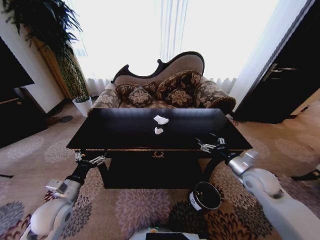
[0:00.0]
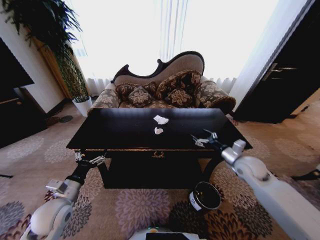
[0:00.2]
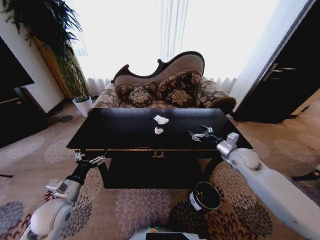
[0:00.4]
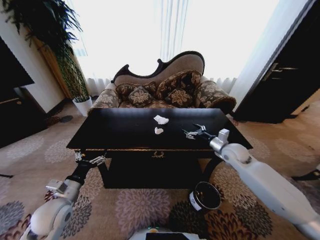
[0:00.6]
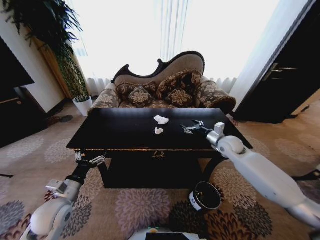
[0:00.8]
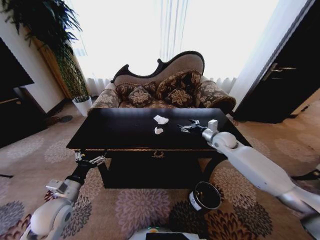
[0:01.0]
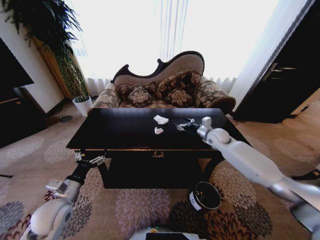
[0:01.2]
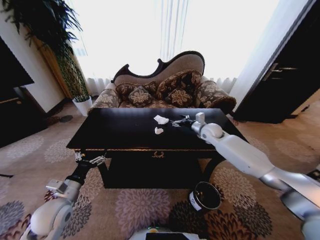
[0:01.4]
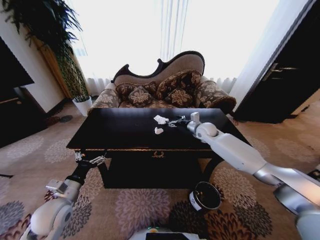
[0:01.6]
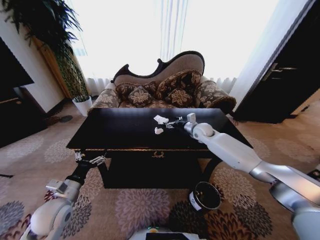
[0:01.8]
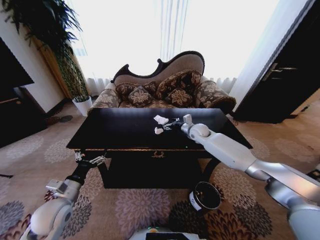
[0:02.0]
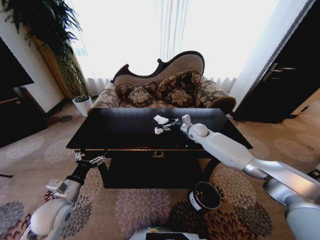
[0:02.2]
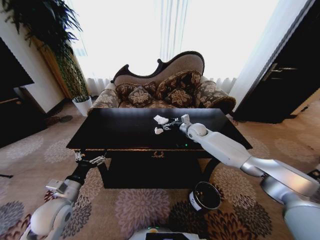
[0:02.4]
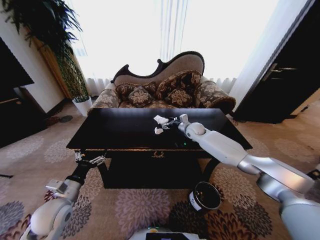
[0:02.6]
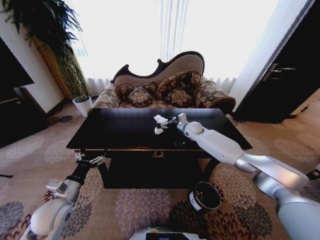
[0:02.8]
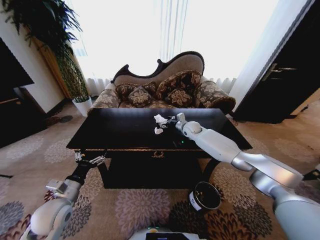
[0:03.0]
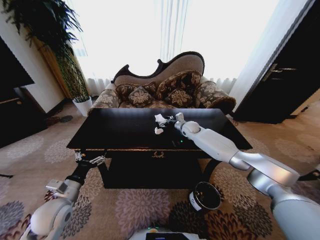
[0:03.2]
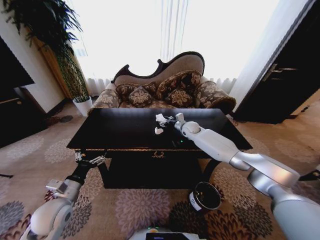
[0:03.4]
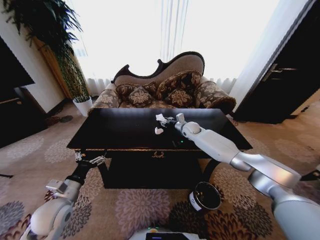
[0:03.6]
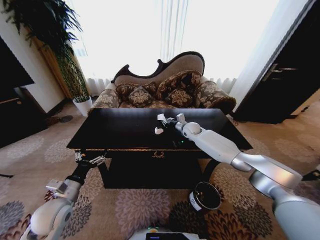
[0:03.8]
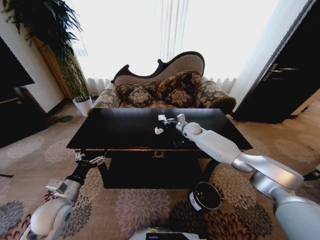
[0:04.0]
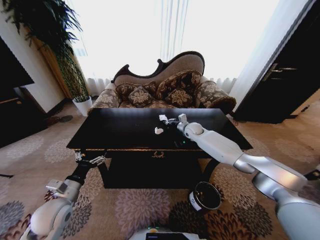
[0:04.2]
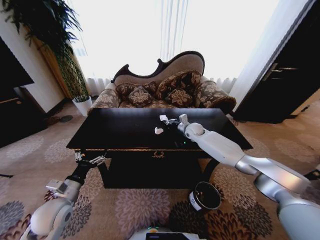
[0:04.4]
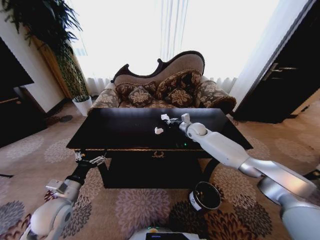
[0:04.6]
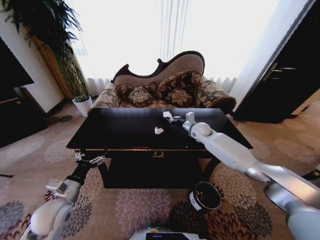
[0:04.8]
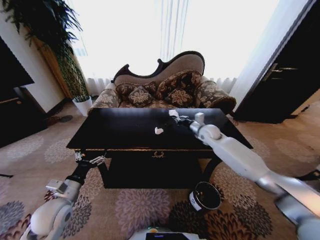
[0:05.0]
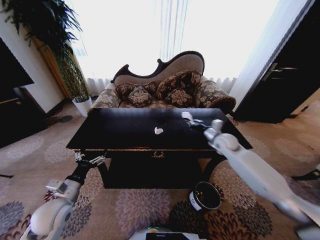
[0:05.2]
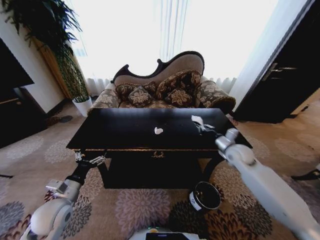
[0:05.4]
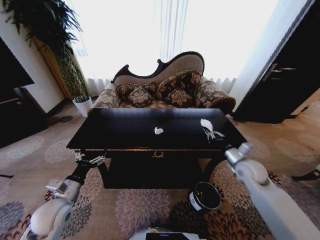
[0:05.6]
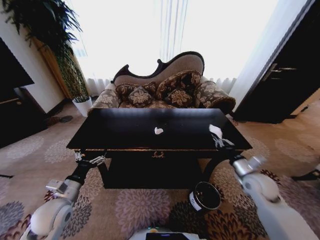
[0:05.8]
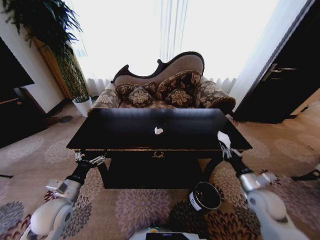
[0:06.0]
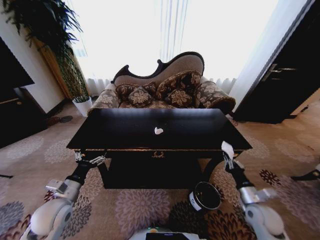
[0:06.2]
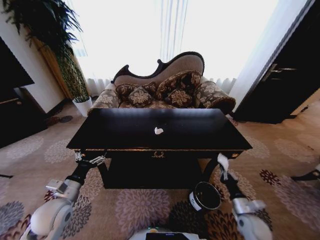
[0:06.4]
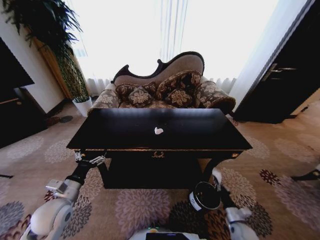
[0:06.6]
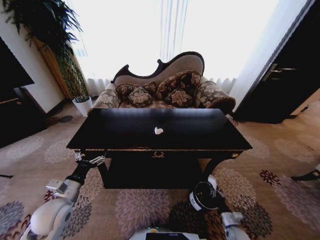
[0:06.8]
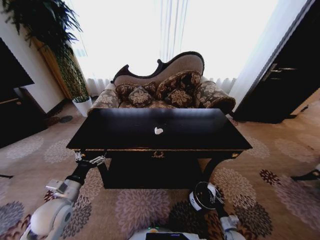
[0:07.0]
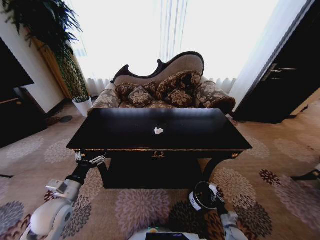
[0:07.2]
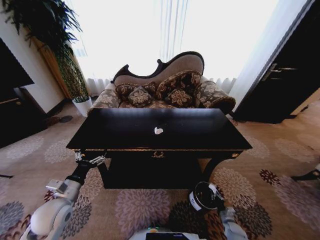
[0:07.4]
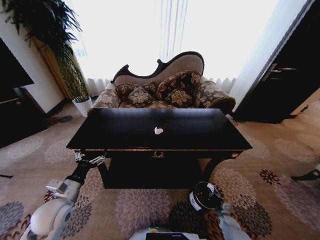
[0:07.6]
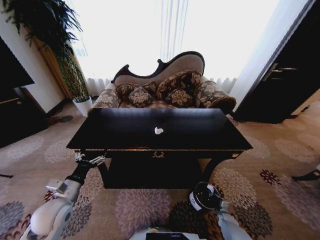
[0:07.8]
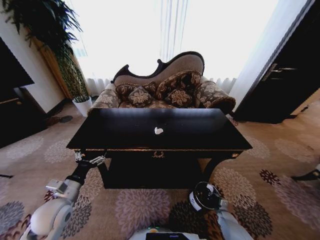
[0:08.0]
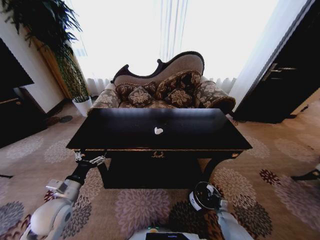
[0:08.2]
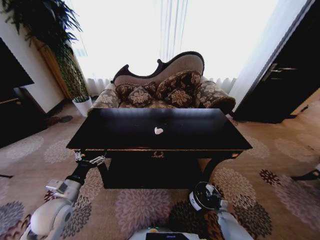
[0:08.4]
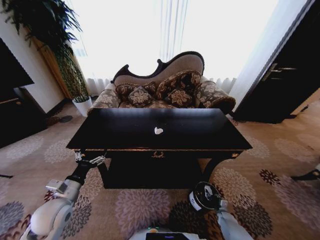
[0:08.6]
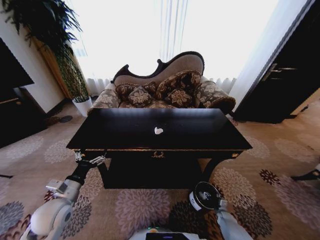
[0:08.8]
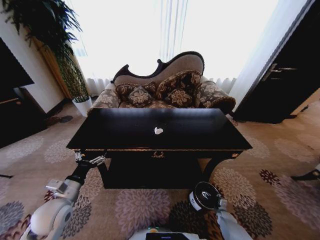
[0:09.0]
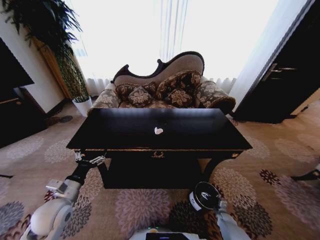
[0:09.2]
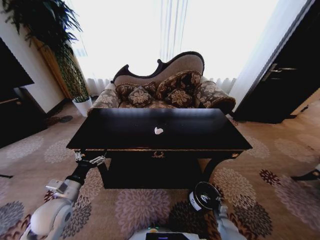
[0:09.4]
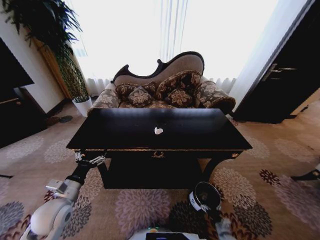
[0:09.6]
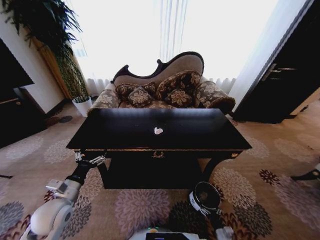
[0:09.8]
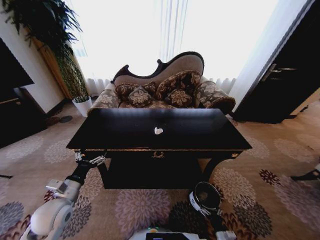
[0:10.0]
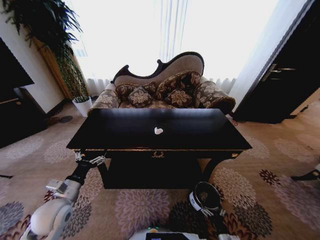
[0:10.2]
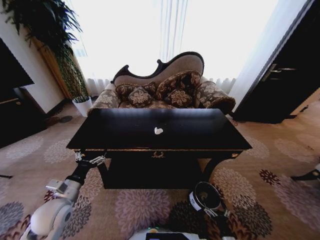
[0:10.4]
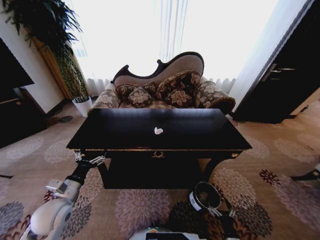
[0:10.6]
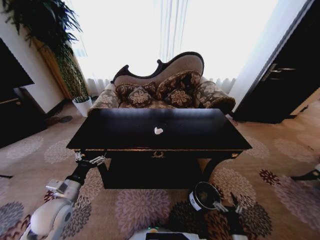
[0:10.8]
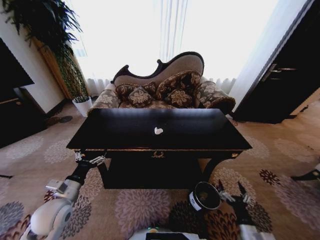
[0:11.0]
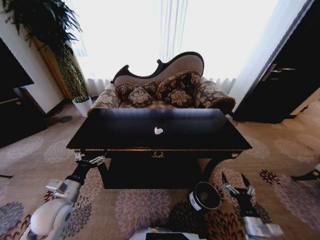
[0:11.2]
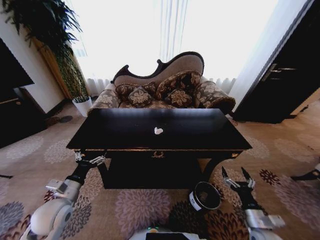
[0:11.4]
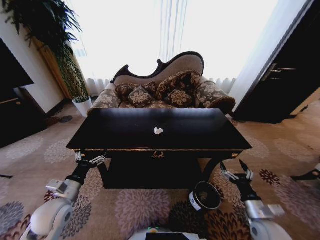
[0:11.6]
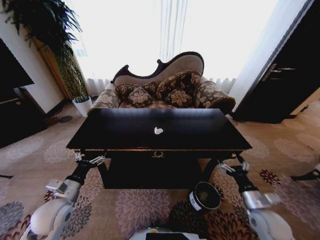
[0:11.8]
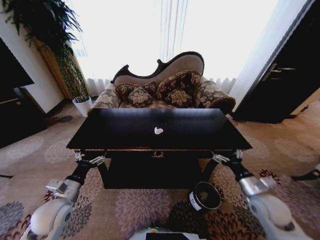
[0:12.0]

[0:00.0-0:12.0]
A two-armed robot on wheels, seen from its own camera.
Task of the whole recording: Move to the front of the table and place the trash on the table into the trash bin.
0:00.0 to 0:01.6: The right gripper goes roughly 30 cm forward and to the left.
0:01.6 to 0:03.0: The right gripper shifts approximately 5 cm to the left and forward.
0:03.0 to 0:04.4: The right gripper closes its fingers.
0:04.4 to 0:06.0: The right gripper is displaced backward and to the right by some 40 cm.
0:06.0 to 0:07.6: The right gripper shifts about 35 cm downward.
0:09.0 to 0:10.4: The right gripper is displaced backward, upward and to the left by about 20 cm.
0:10.4 to 0:12.0: The right gripper is displaced upward and forward by some 35 cm.

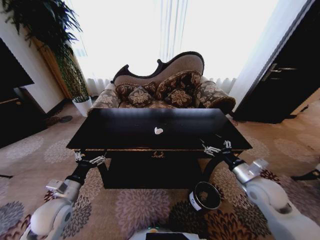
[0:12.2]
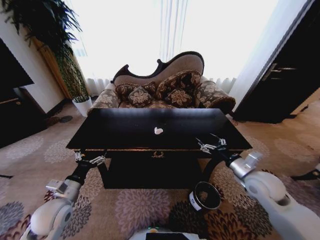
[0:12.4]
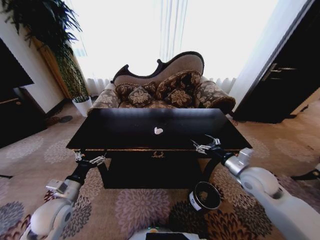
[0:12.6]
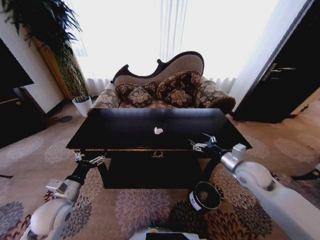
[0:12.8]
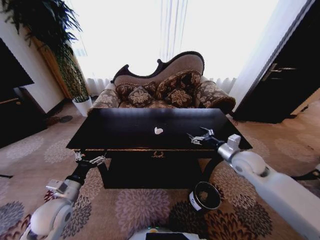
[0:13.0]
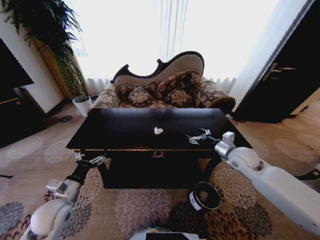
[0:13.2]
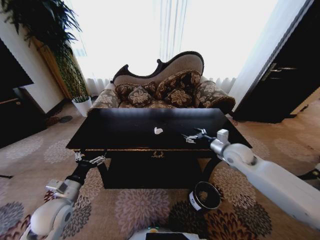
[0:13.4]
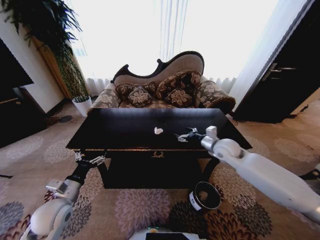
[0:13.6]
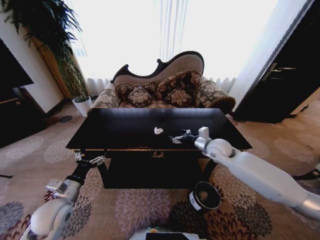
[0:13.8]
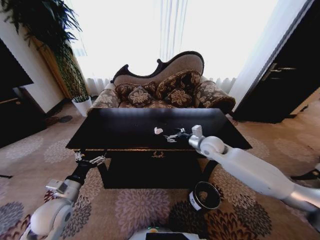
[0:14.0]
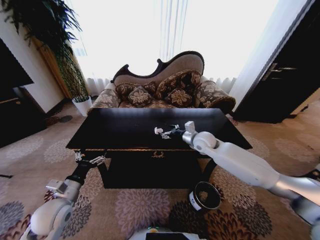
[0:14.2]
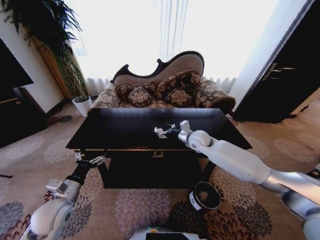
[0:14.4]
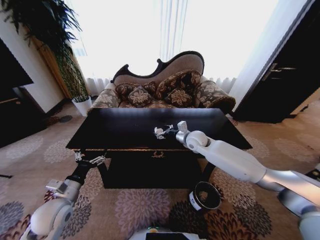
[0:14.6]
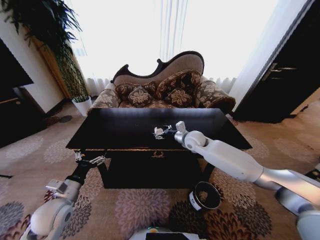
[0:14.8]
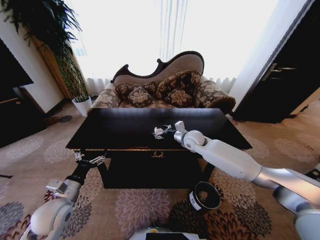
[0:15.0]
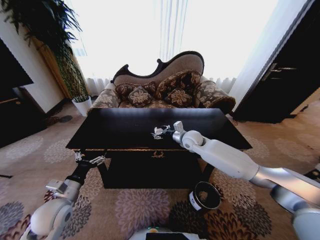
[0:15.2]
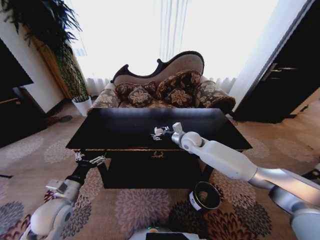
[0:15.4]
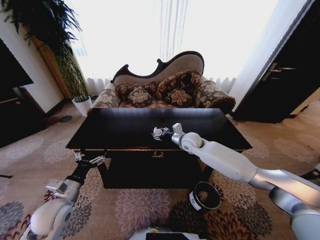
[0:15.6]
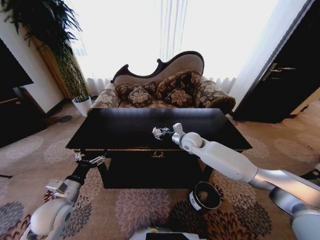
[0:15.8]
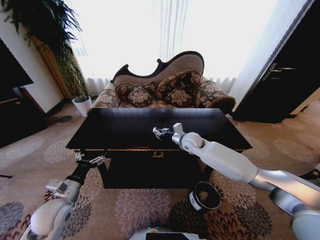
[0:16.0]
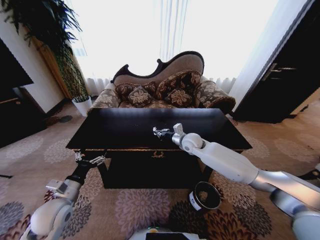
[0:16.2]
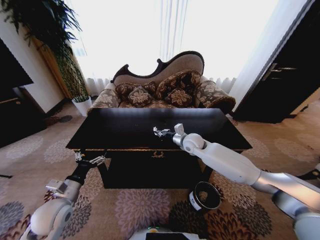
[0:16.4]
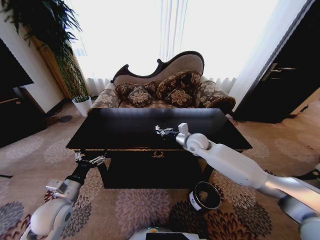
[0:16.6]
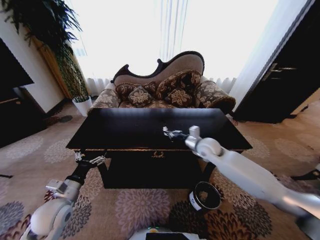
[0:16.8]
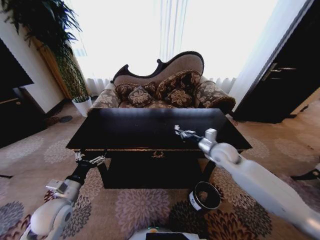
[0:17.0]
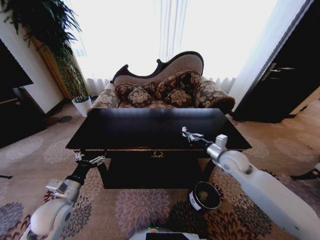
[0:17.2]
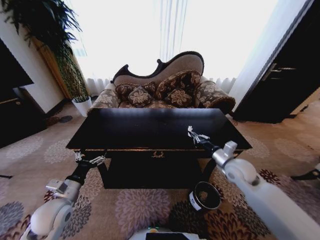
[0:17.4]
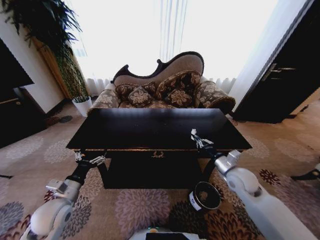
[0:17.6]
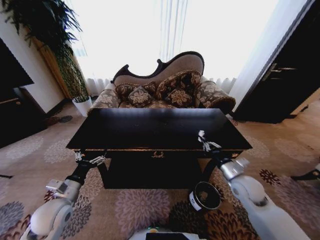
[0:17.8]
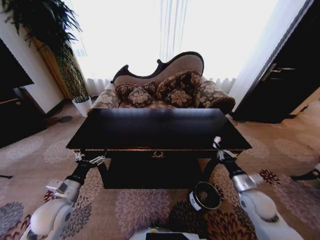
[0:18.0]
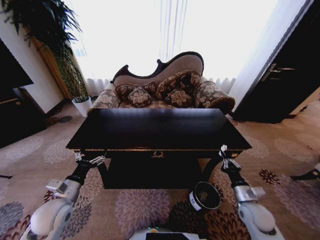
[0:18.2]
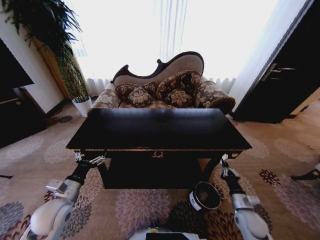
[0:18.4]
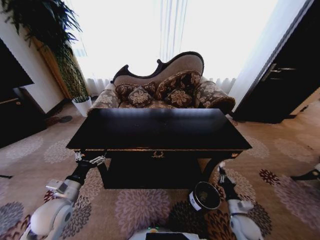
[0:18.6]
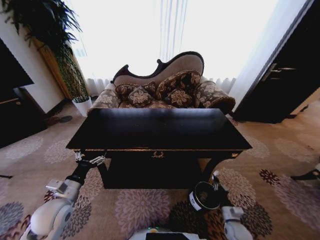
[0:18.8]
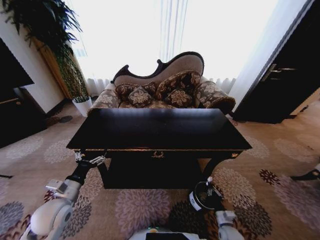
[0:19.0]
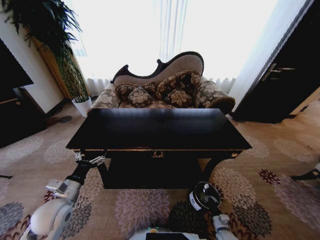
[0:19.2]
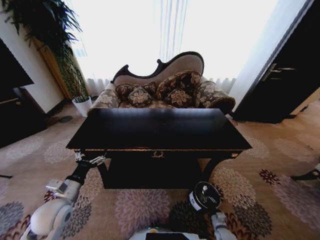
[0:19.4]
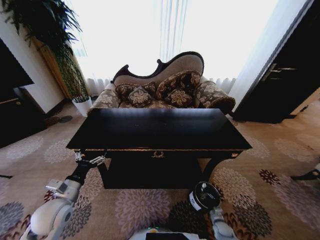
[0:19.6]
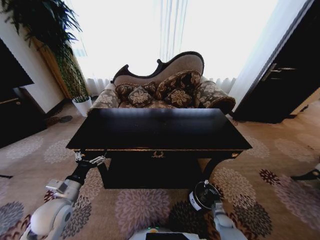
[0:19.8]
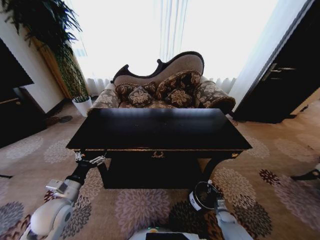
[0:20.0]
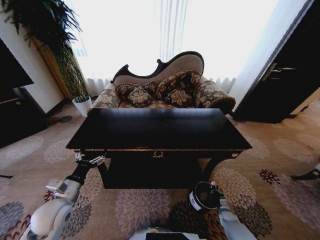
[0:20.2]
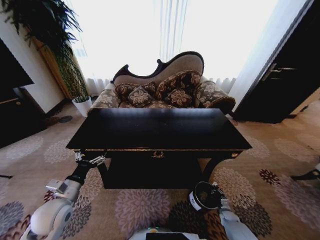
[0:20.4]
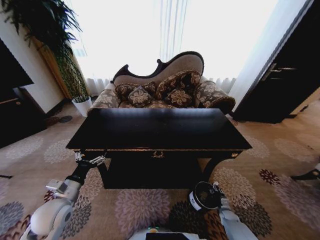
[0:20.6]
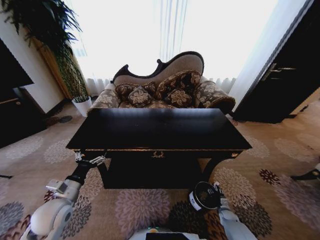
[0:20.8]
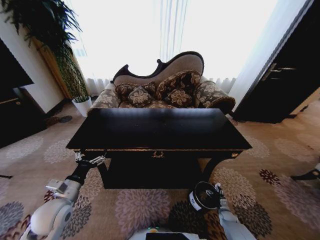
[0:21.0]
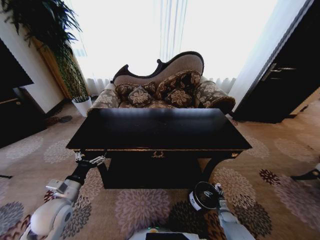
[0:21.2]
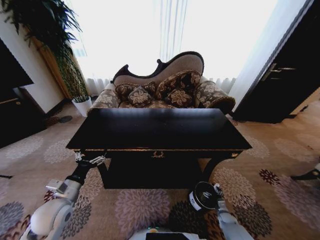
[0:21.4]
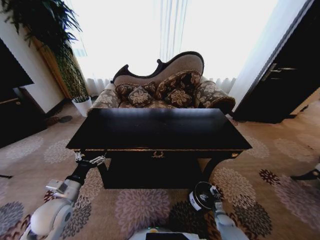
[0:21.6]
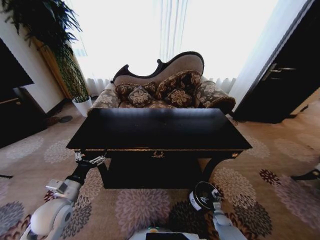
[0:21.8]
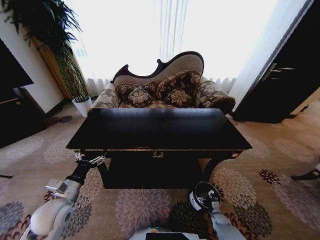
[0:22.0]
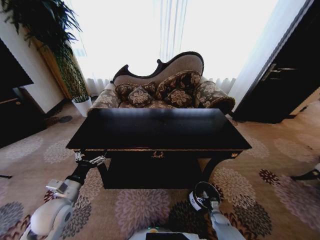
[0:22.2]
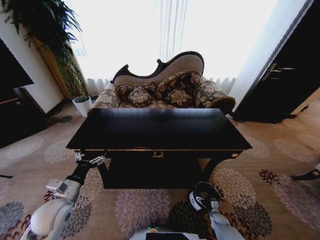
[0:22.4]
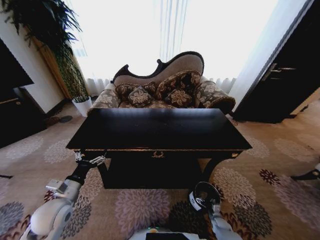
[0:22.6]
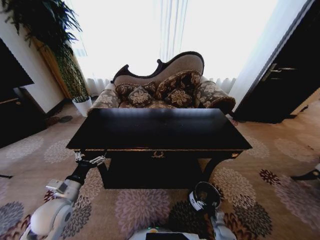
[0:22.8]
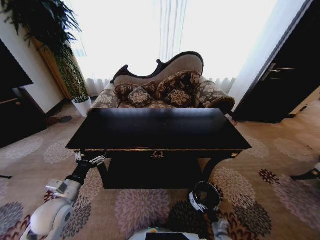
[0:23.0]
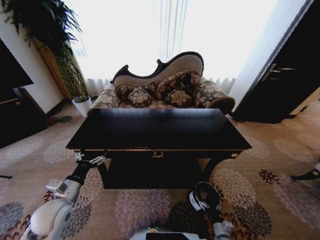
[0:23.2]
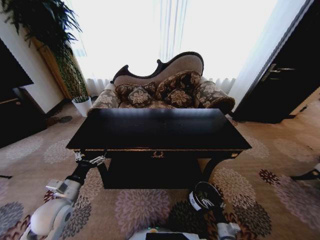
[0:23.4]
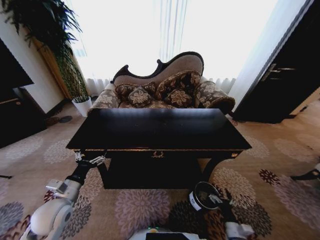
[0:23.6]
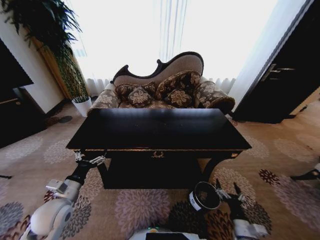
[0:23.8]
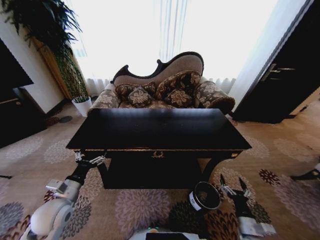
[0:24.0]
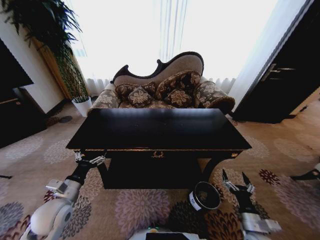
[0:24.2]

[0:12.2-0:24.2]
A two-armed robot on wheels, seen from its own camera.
Task of the whole recording: Move to the front of the table and place the trash on the table into the trash bin.
0:12.2 to 0:13.8: The right gripper travels forward and to the left by approximately 20 cm.
0:13.8 to 0:15.2: The right gripper is displaced to the left and forward by roughly 10 cm.
0:15.2 to 0:16.6: The right gripper closes up.
0:16.6 to 0:18.2: The right gripper travels backward, to the right and downward by approximately 35 cm.
0:18.2 to 0:19.8: The right gripper is displaced downward by approximately 30 cm.
0:19.8 to 0:21.2: The right gripper opens its fingers.
0:21.2 to 0:22.6: The right gripper is displaced to the left by approximately 5 cm.
0:22.6 to 0:24.2: The right gripper goes approximately 25 cm upward.
